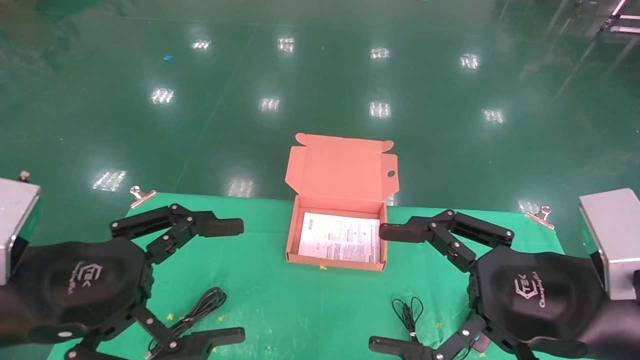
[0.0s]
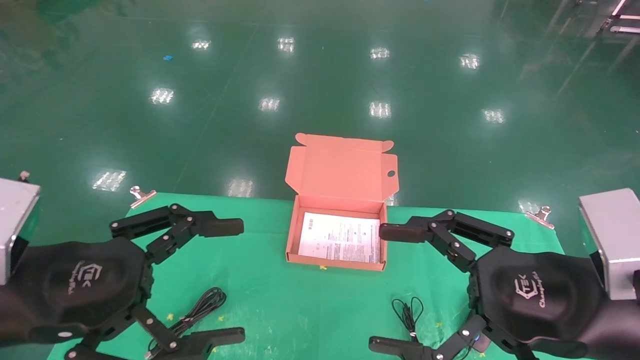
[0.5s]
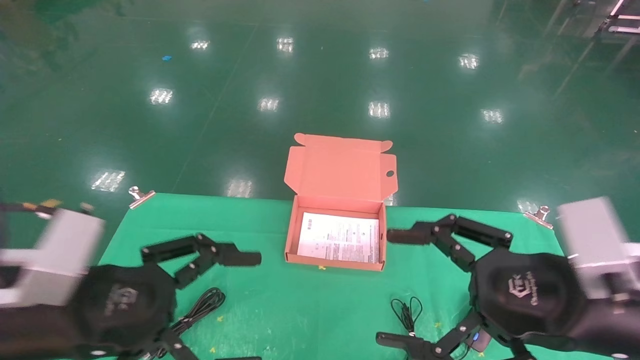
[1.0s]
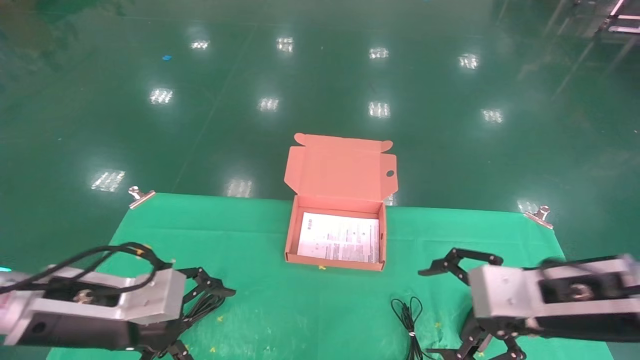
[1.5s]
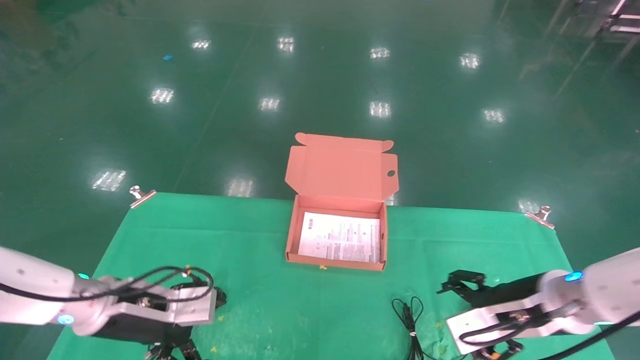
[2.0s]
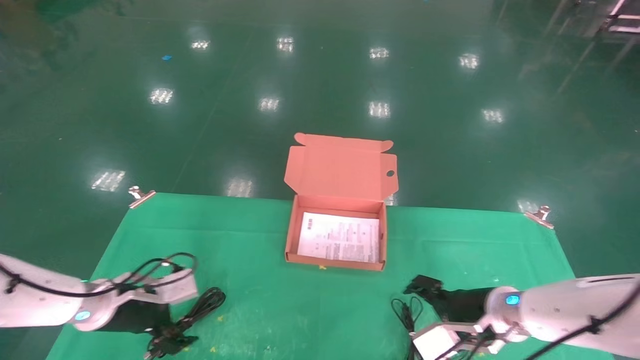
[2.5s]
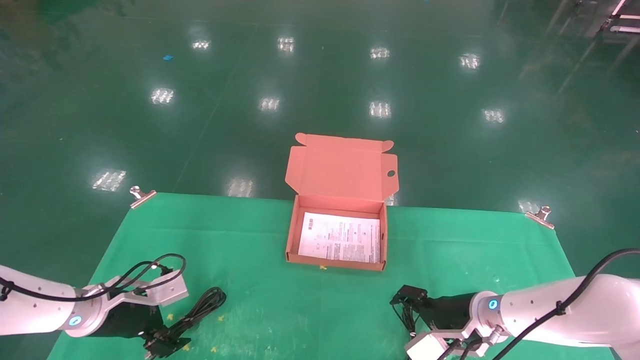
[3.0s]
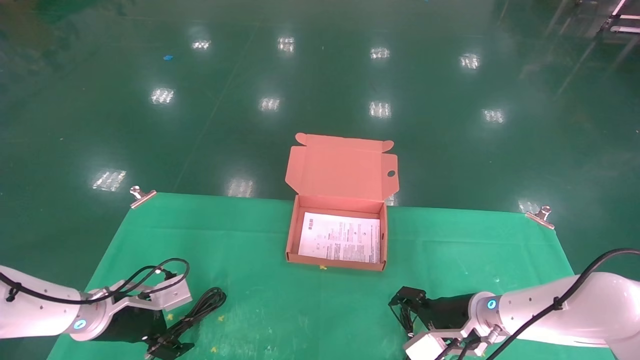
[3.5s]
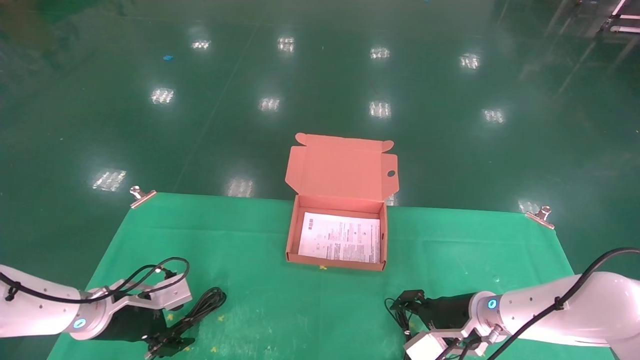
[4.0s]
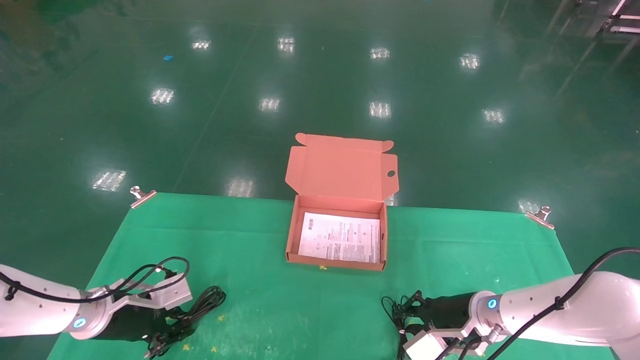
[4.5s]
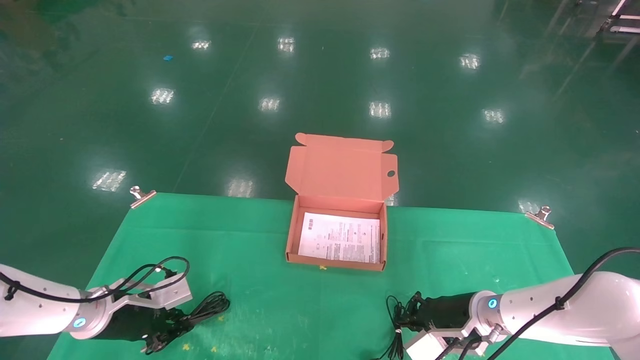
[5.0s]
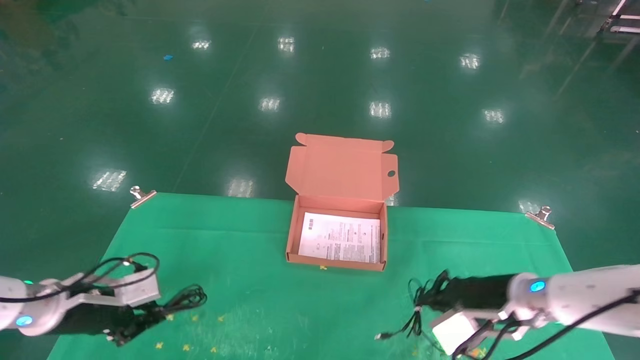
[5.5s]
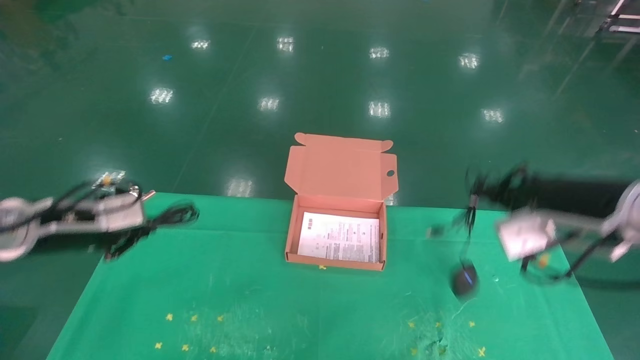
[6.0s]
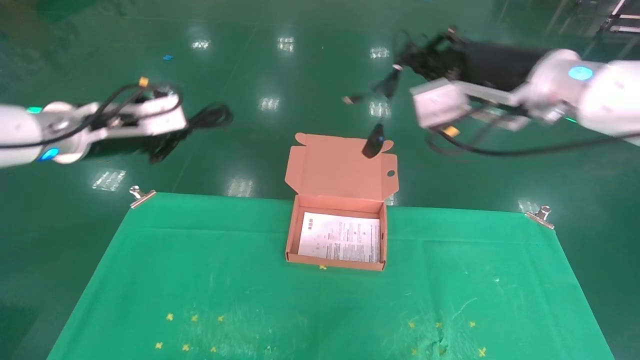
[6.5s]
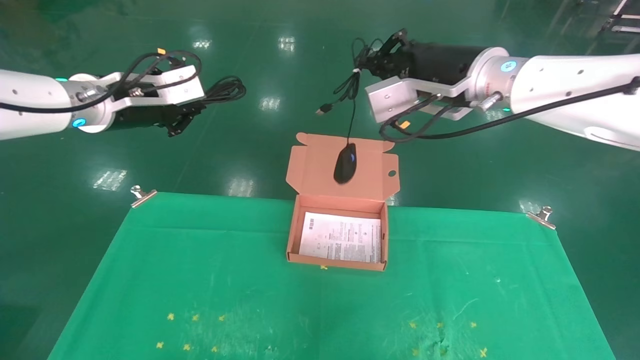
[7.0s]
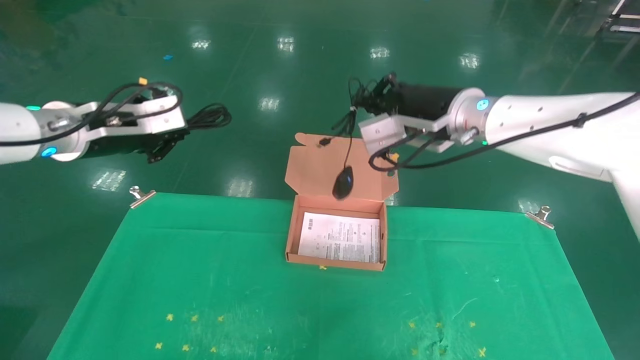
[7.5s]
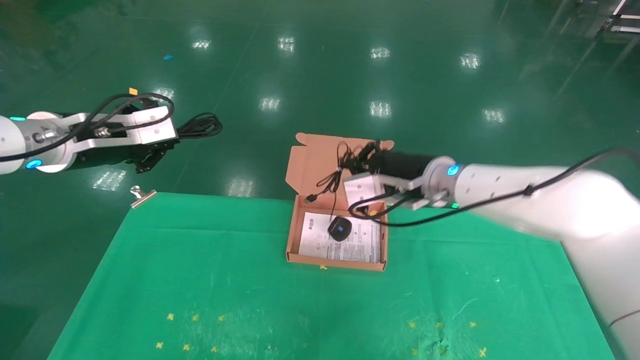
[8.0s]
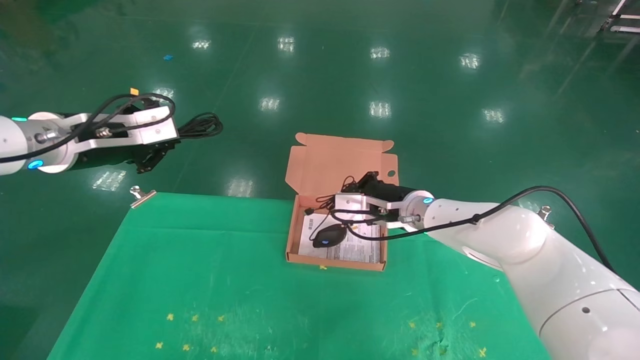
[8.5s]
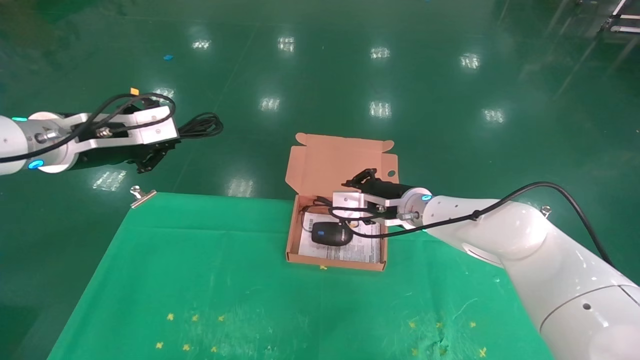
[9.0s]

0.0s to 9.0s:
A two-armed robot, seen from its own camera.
Task of the whole recording: grasp data cable left put into box grasp mouse right put into box.
Step, 1.0s to 5.0s: Grab and pick up both the mouse and power cord from the accessory packaging area at the same time.
0.0s to 2.0s: Both grippers move forward and downward, approximately 20 cm.
2.0s to 4.5s: The left gripper heads downward, forward and to the left, covering approximately 10 cm, and closes its fingers. Meanwhile the right gripper moves downward and forward, some 15 cm, and closes.
4.5s to 7.0s: Both grippers move upward, approximately 35 cm. The right gripper closes its fingers.
7.0s to 9.0s: The left gripper moves approximately 5 cm. Meanwhile the right gripper moves downward and forward, some 20 cm.

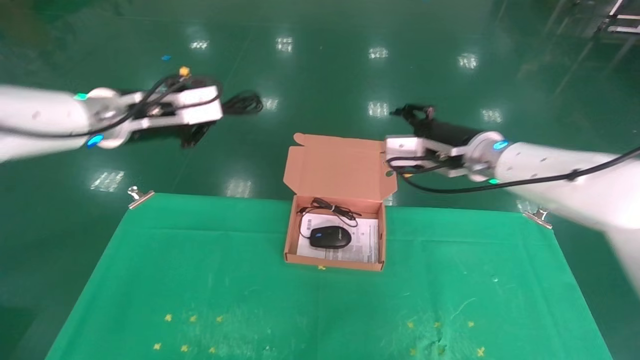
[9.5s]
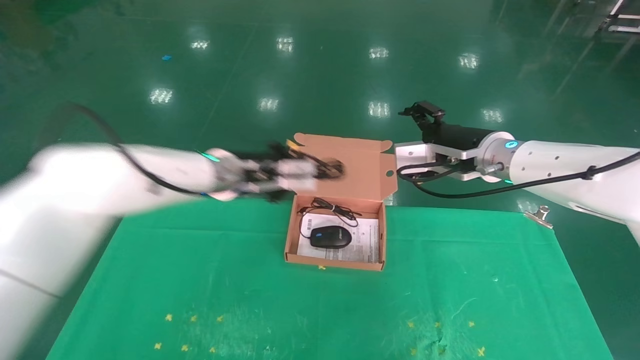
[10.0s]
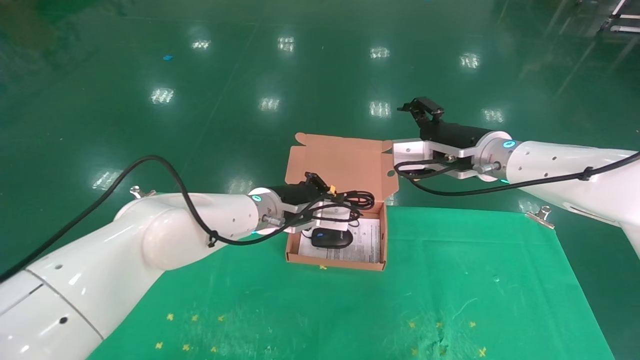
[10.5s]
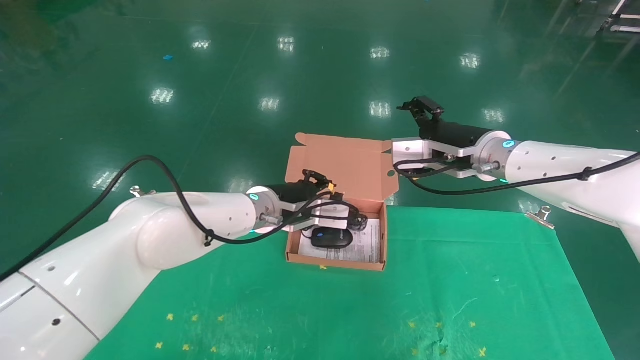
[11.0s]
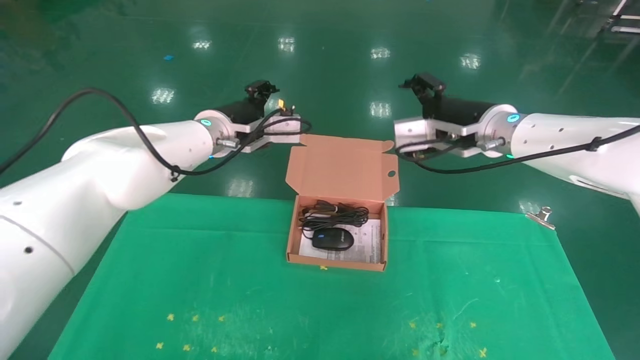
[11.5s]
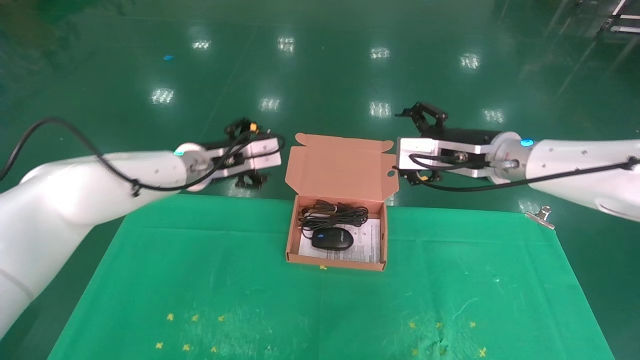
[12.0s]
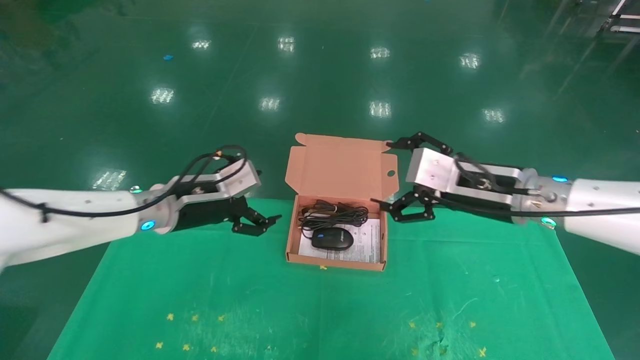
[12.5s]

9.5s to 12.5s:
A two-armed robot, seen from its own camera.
Task of the whole recording: grasp data cable left put into box grasp mouse right put into box.
9.5s to 11.0s: The left gripper moves to the right and downward, some 20 cm. The right gripper opens.
11.0s to 12.5s: The right gripper shifts about 5 cm backward. Meanwhile the left gripper shifts some 15 cm to the left, and opens up.

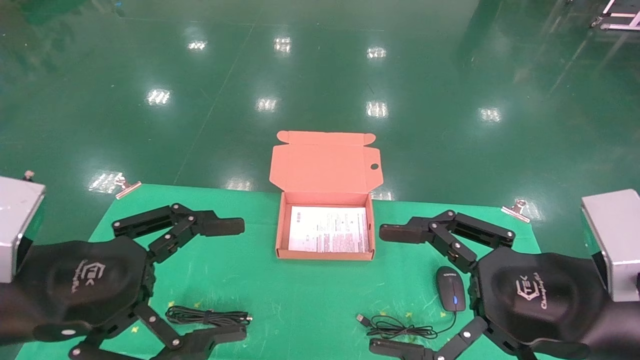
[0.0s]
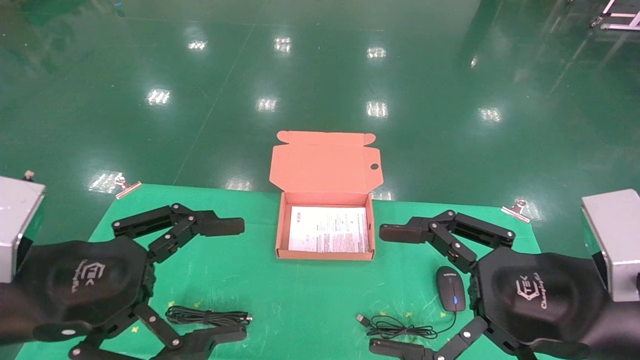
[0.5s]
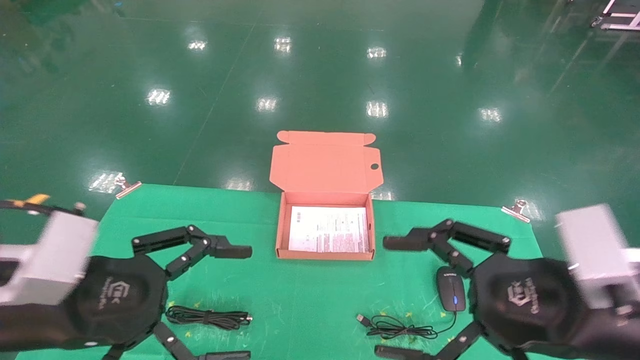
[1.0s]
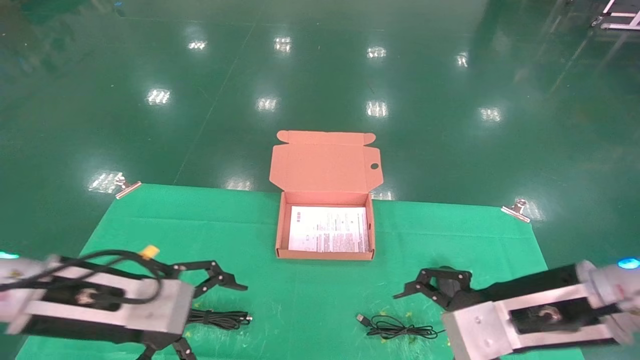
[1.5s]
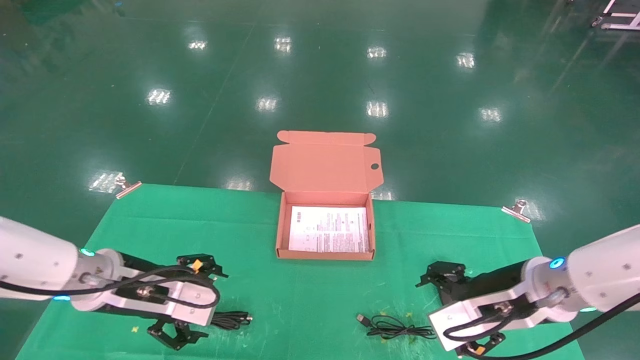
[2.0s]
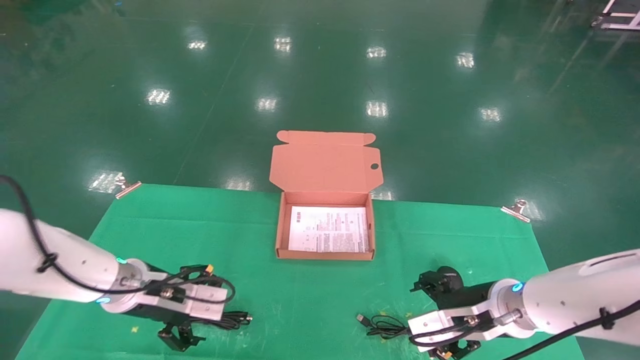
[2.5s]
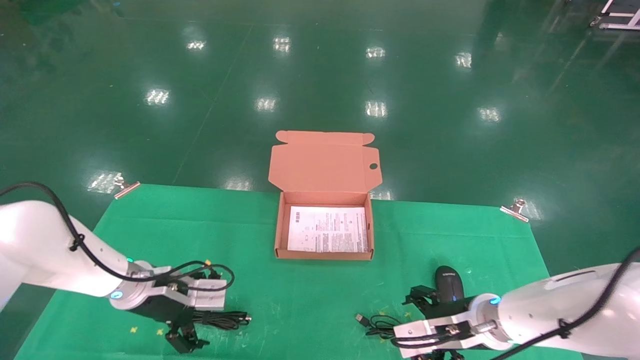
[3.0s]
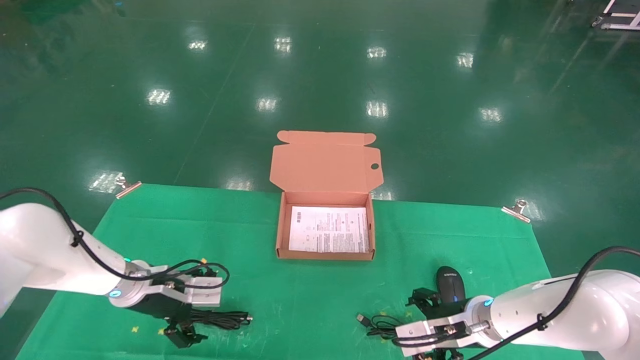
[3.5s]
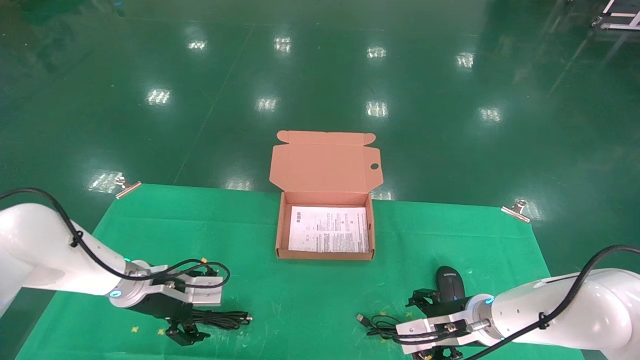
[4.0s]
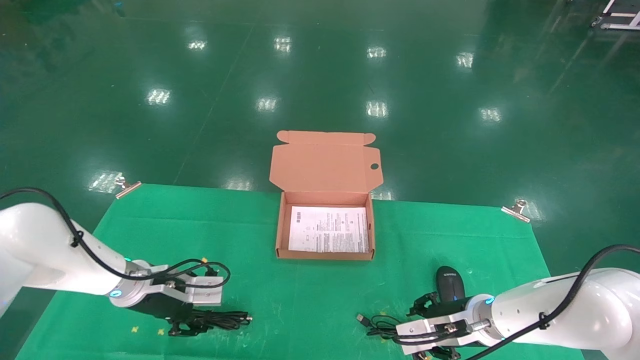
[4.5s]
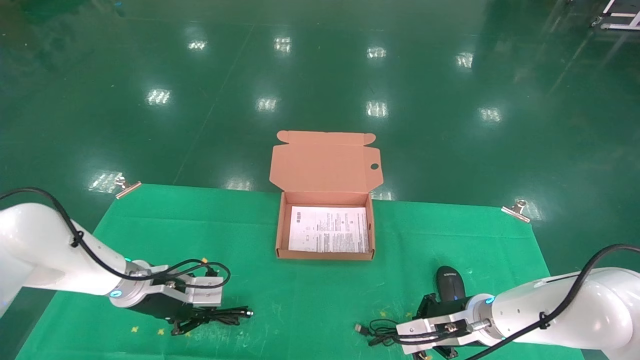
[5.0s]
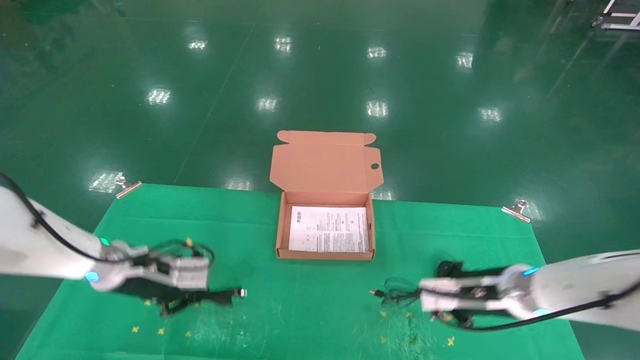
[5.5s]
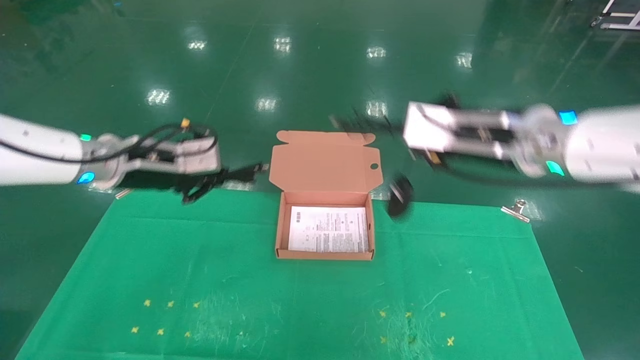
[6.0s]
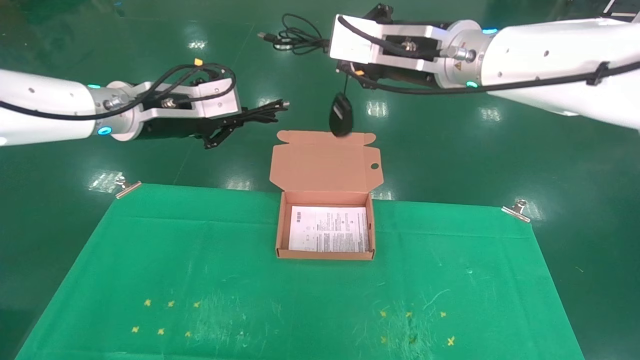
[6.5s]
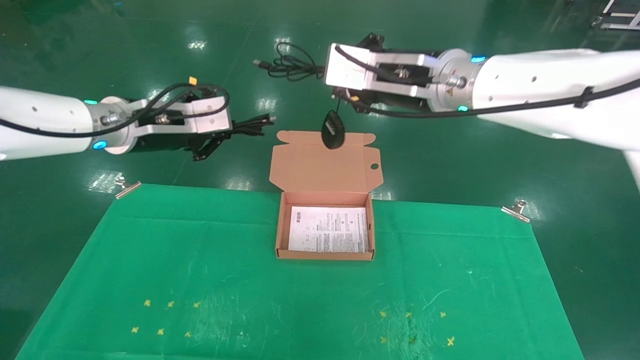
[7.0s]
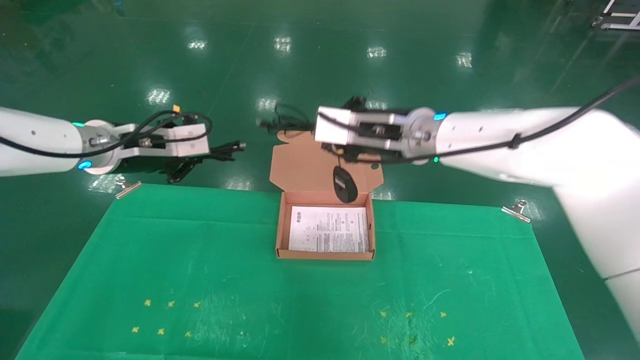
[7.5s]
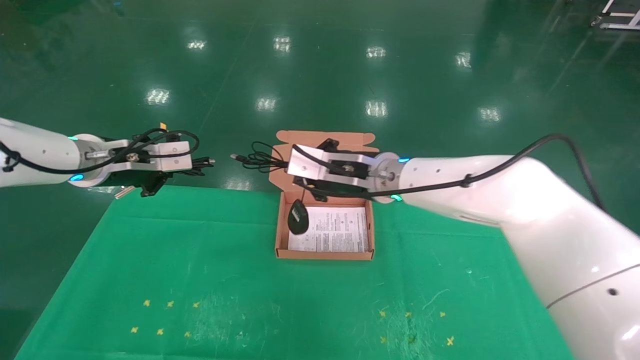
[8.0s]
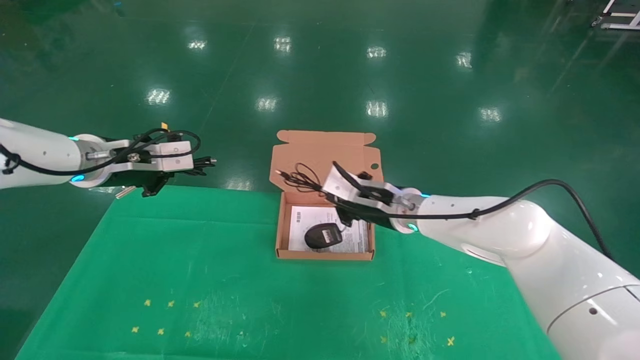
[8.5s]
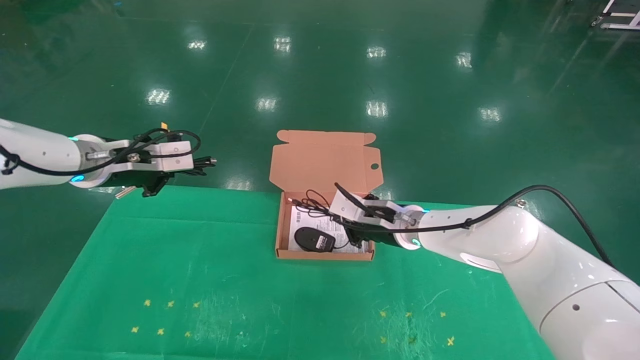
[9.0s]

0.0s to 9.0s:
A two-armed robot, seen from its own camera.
Task of the whole recording: grasp data cable left put into box grasp mouse right put into box.
Step, 1.0s to 6.0s: Grab and pick up both the mouse and power cord from the accessory packaging area at the same time.
0.0s to 2.0s: Both grippers travel together forward and downward, some 15 cm.
2.0s to 4.5s: The left gripper moves forward and downward, roughly 10 cm, and closes its fingers, while the right gripper goes some 15 cm downward and forward, and closes its fingers.
4.5s to 7.0s: The grippers both shift upward by approximately 30 cm. The left gripper closes up, while the right gripper closes up.
7.0s to 9.0s: The left gripper goes approximately 5 cm to the left. Meanwhile the right gripper is displaced downward and forward by some 25 cm.
